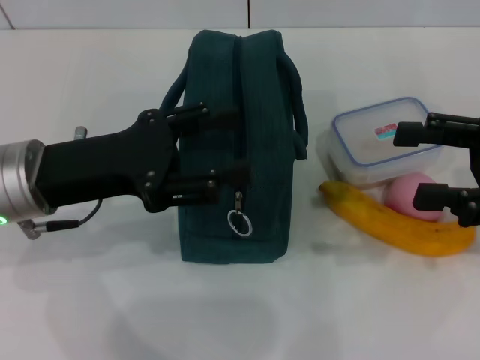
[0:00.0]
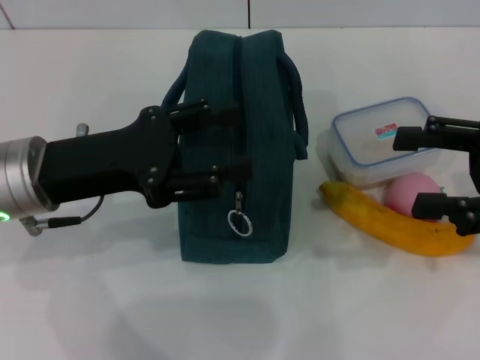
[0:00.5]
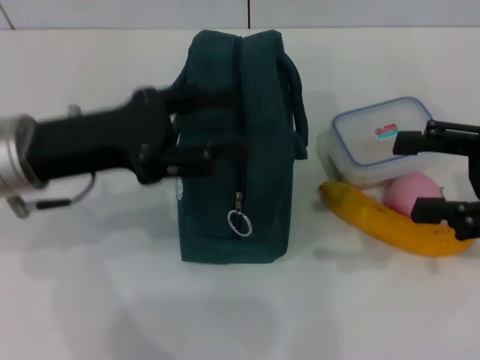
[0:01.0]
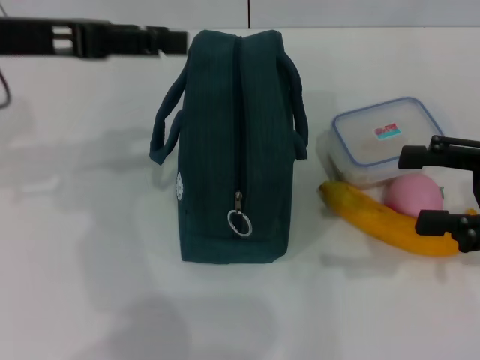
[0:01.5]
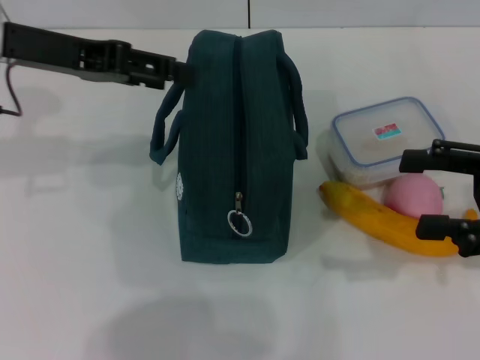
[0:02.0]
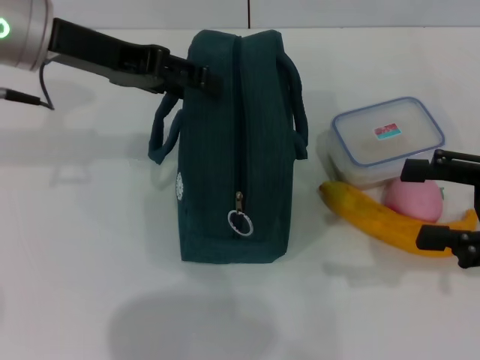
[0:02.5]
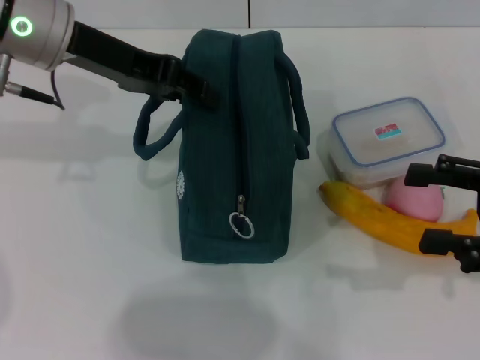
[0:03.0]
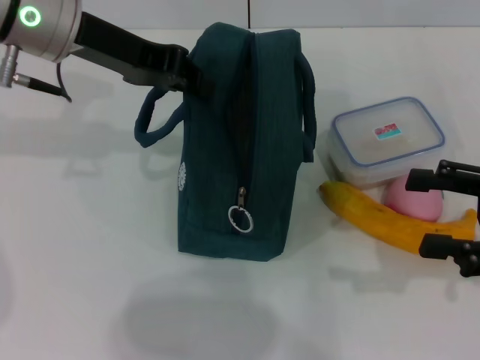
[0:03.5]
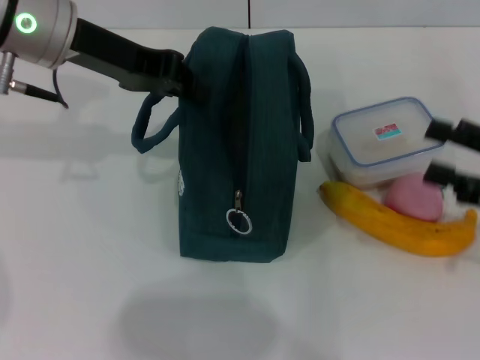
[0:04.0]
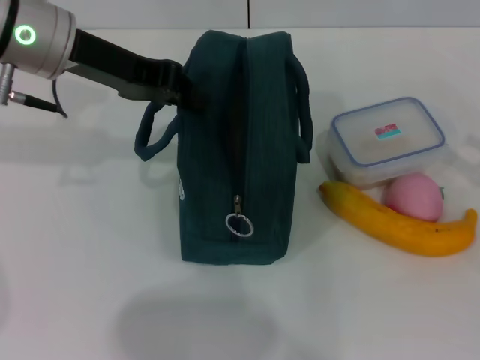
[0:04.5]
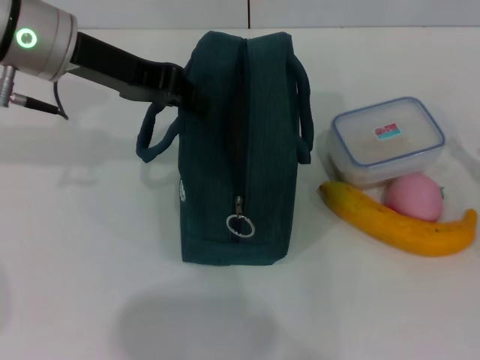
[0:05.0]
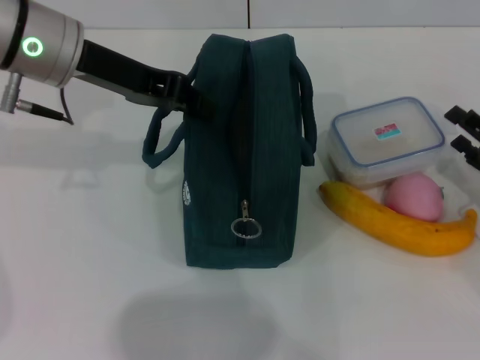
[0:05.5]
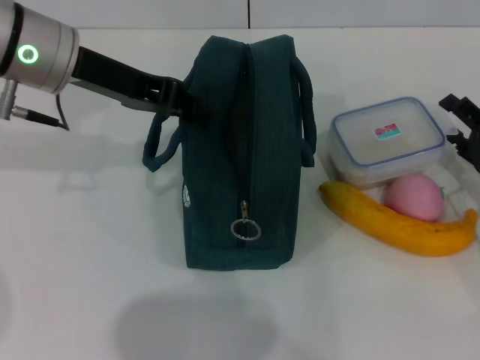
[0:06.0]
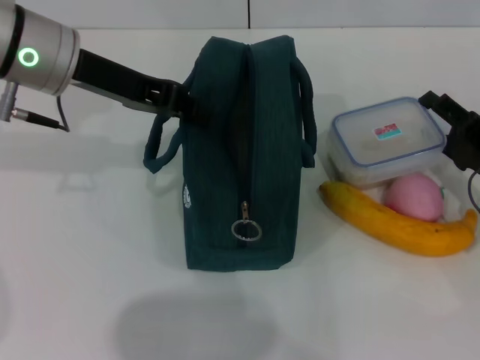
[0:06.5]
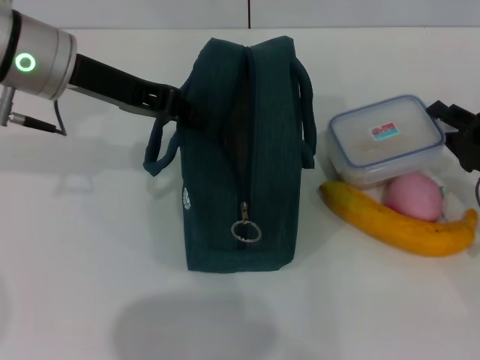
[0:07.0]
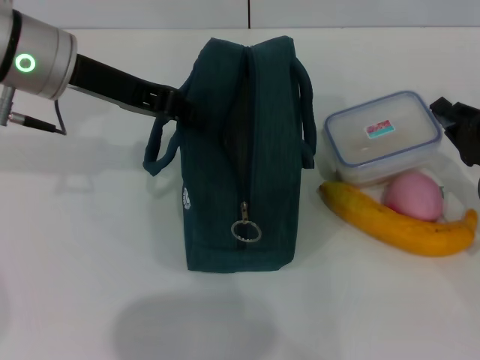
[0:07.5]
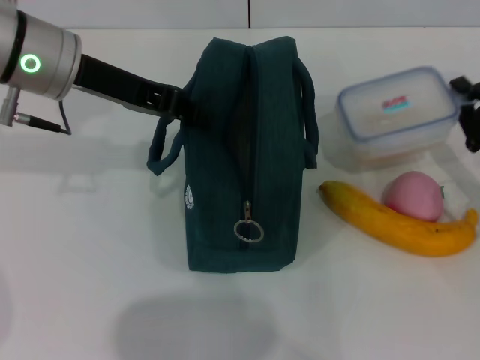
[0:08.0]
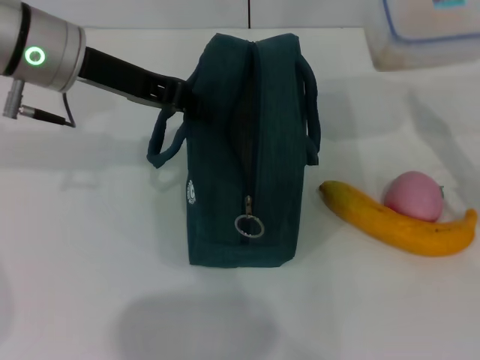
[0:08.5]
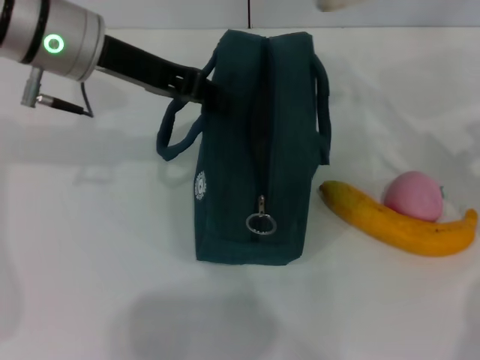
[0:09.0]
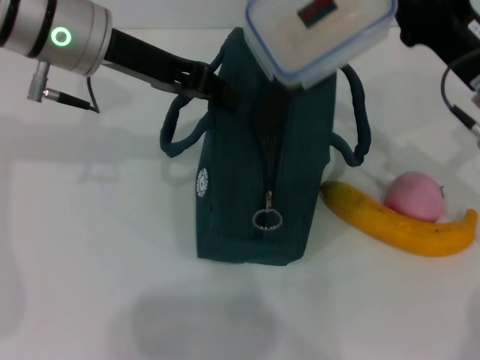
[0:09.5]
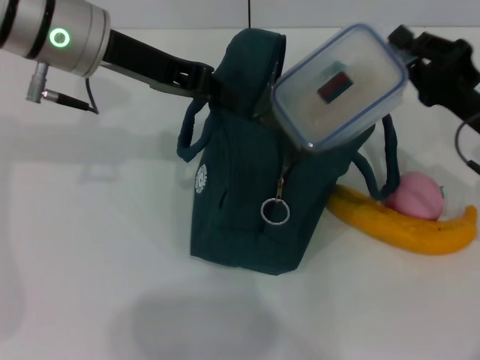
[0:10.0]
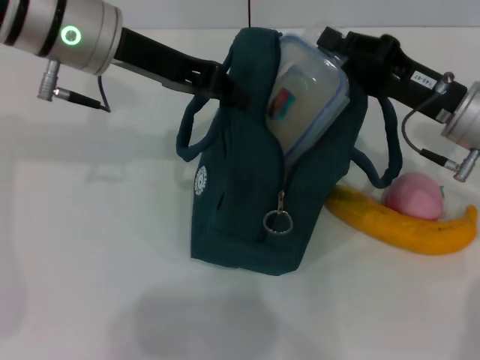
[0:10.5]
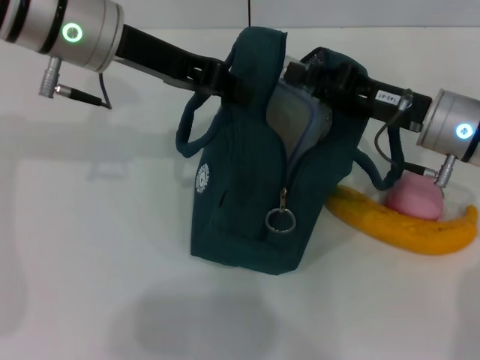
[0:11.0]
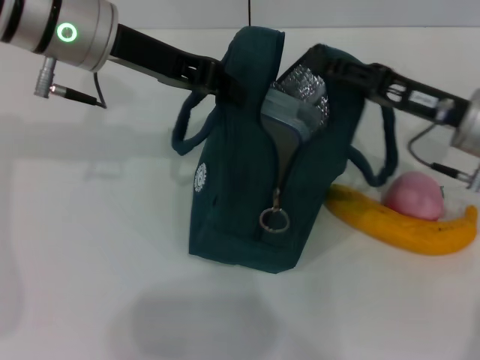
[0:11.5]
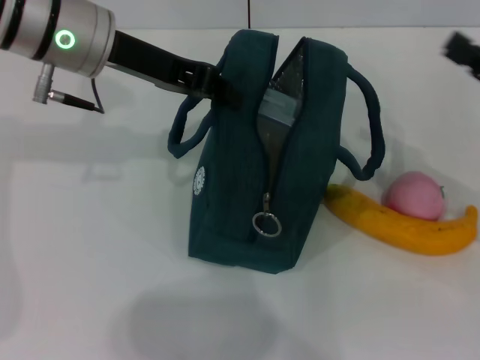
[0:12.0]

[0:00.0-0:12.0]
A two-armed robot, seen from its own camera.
Step, 0:00.0 to 0:03.5: Hold the lunch bag with your left hand.
Step, 0:04.0 to 0:07.0: Pick up the lunch box with your right hand.
Step, 0:08.0 to 0:11.0: Place the lunch box into the lunch bag with your right hand.
0:00.0 to 0:02.0: The left gripper is displaced upward and forward by about 10 cm.
0:02.0 to 0:04.0: The left gripper changes place by roughly 5 cm, and closes.
0:04.0 to 0:06.0: The right gripper moves downward, about 10 cm.
0:06.0 to 0:08.0: The right gripper closes.
0:10.0 to 0:12.0: The right gripper goes roughly 5 cm to the right, and opens.

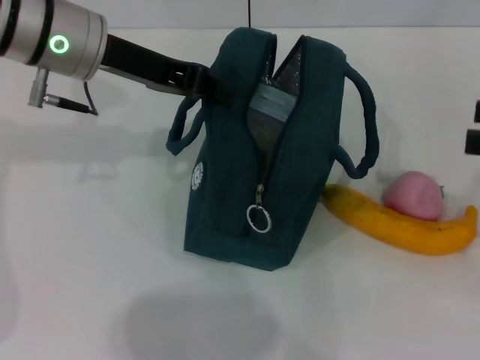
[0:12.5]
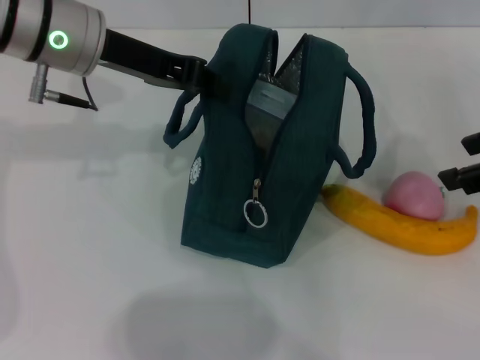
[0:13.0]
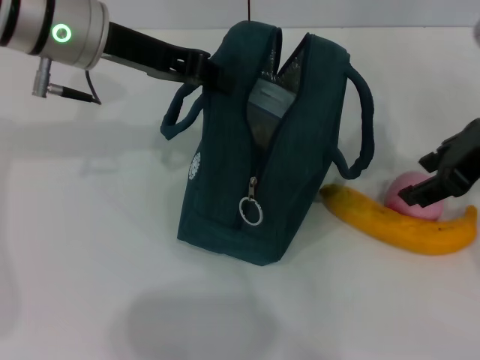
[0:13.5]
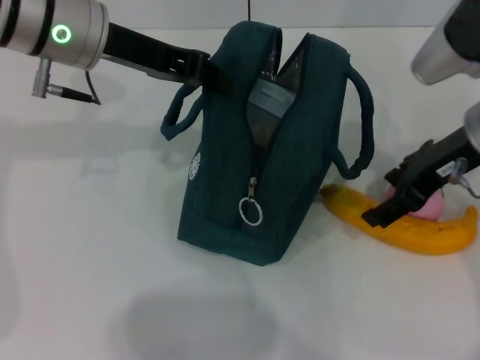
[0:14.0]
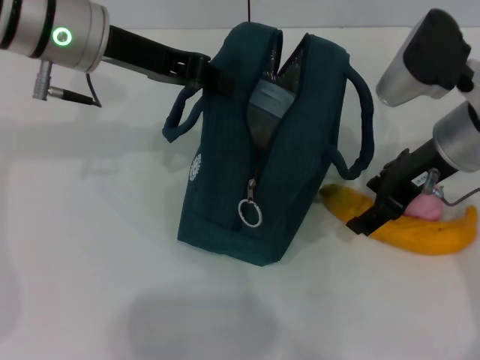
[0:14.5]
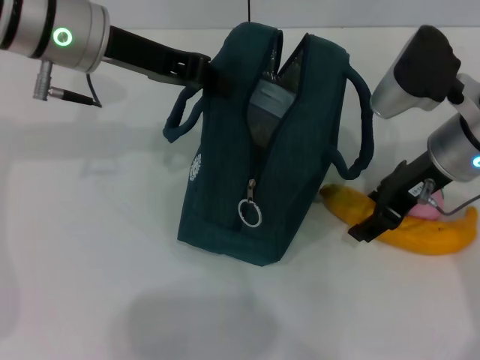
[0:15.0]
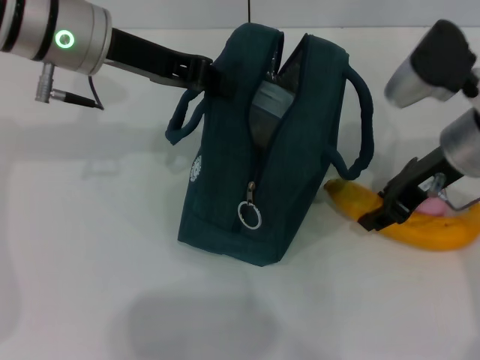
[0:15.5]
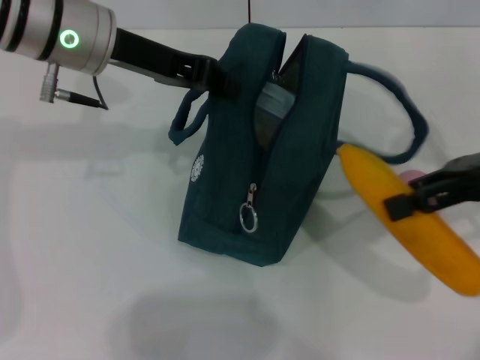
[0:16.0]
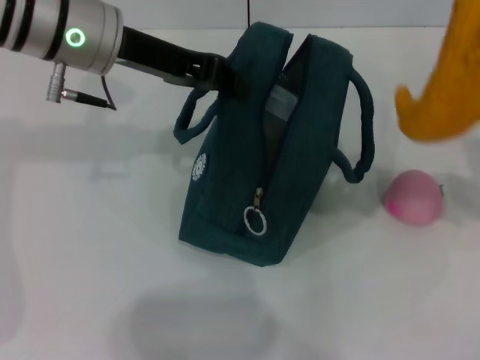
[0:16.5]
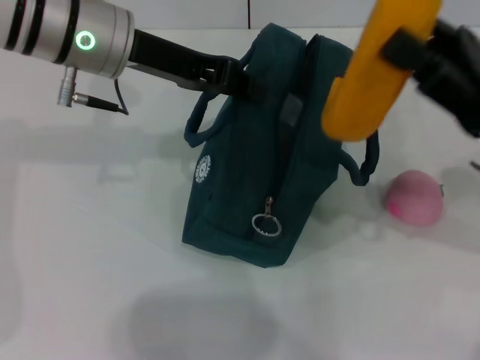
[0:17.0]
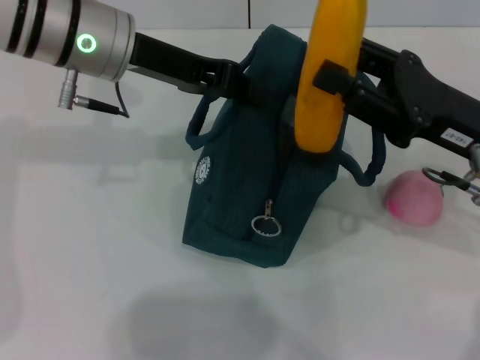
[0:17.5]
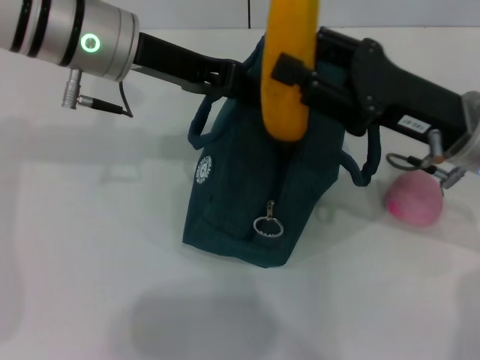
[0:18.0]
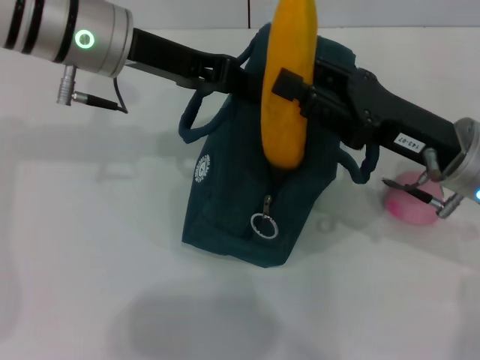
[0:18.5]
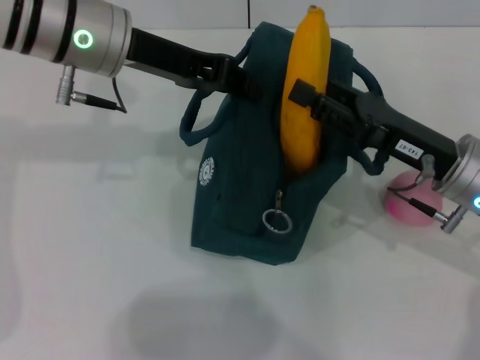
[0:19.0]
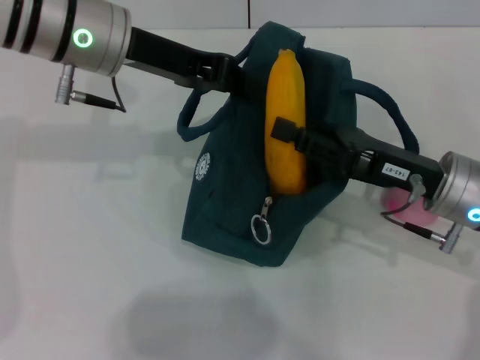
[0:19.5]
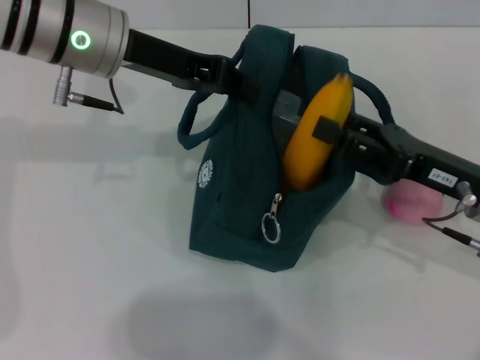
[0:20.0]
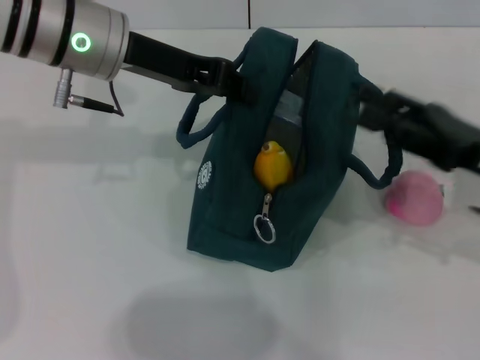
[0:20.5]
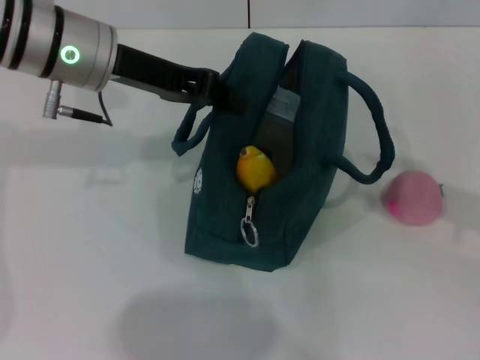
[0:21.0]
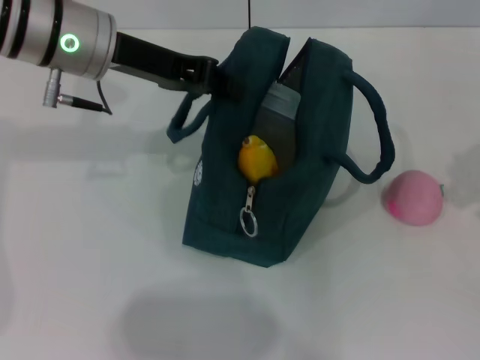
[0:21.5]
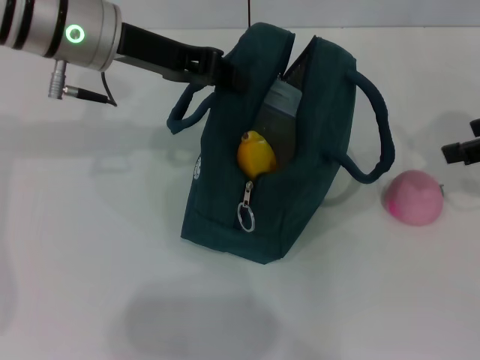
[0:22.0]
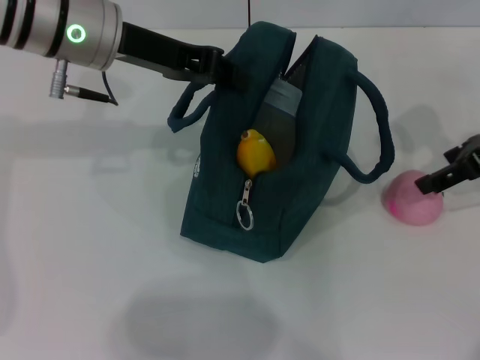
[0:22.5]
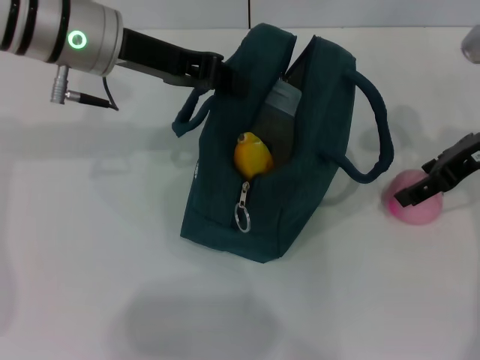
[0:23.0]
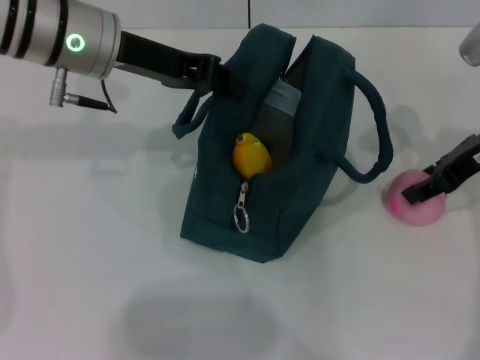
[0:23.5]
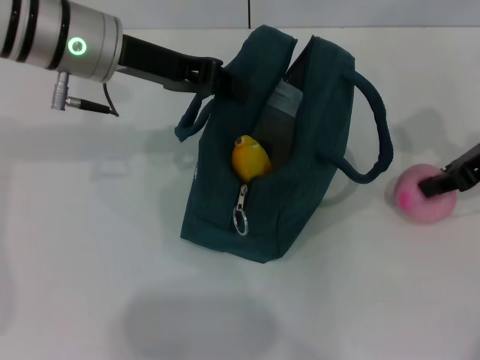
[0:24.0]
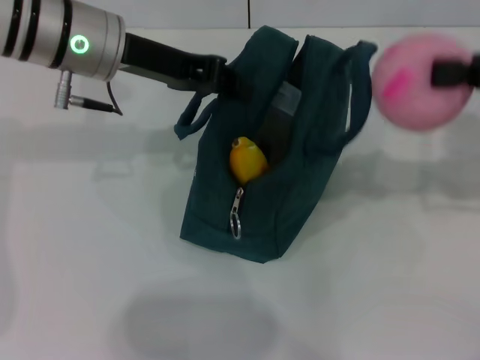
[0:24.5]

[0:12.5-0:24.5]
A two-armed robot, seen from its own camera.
Step, 0:12.5 to 0:15.0: Pick up the cucumber with your right hand.
Step, 0:15.5 to 0:20.0: Put the cucumber into the lunch bag with your right hand.
Step, 0:20.5 to 0:23.5: Grab the peach with your right hand.
0:12.5 to 0:14.5: The right gripper heads to the left and forward, covering some 20 cm.
0:14.5 to 0:16.5: The right gripper shifts roughly 10 cm to the right, and closes up.
0:16.5 to 0:18.5: The right gripper shifts about 15 cm to the left and downward.
0:18.5 to 0:20.5: The right gripper shifts about 5 cm to the right.
0:20.5 to 0:22.5: The right gripper travels upward and forward by about 10 cm.
0:22.5 to 0:24.5: The right gripper shifts by some 5 cm, and closes up.

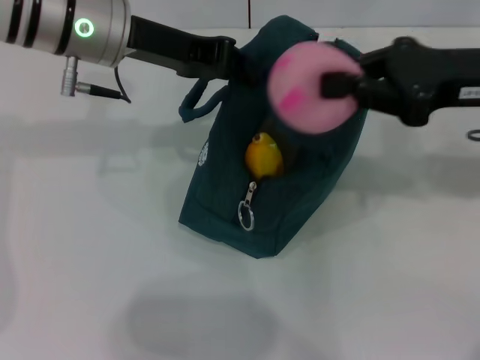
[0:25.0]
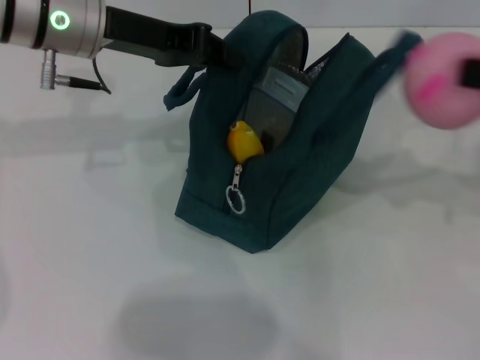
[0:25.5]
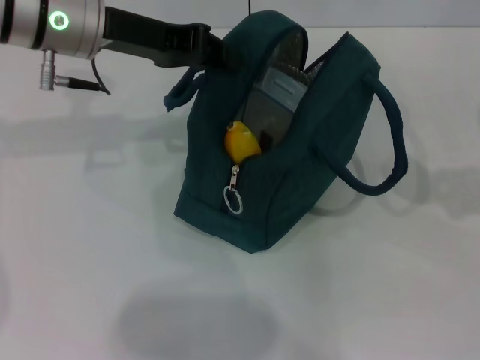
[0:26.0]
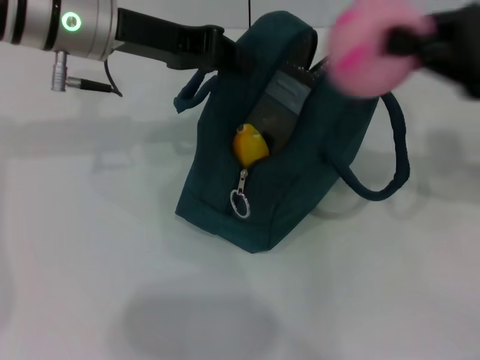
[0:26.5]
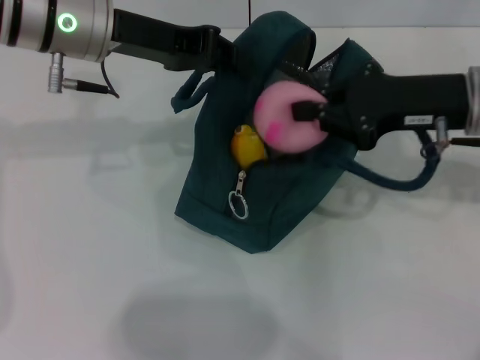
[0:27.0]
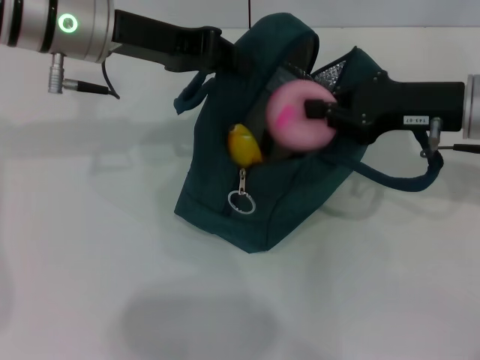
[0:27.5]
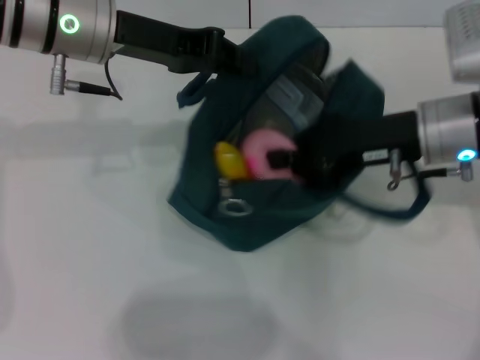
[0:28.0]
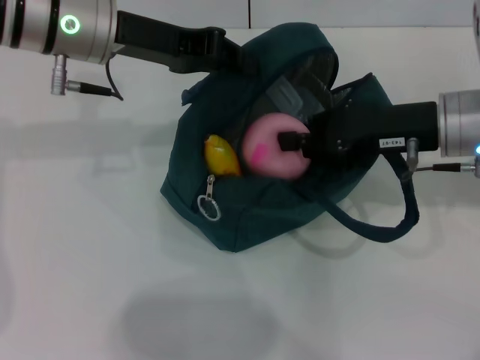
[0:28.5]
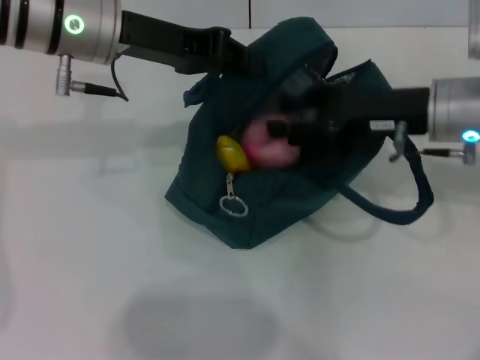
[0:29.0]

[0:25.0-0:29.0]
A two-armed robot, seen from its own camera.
0:25.0 to 0:27.0: The right gripper travels to the right and back again, roughly 15 cm each way.
0:27.0 to 0:29.0: The grippers stay close to where they were, moving slightly.
